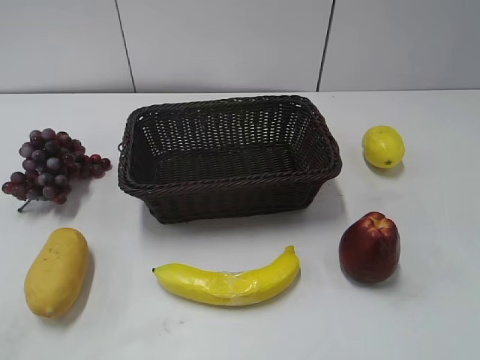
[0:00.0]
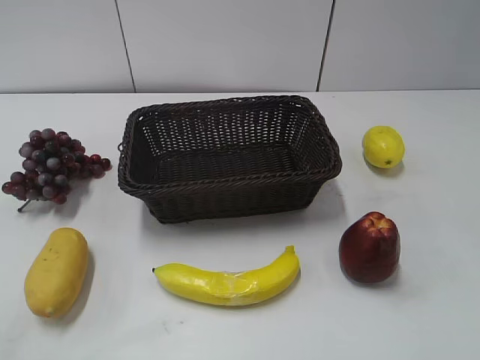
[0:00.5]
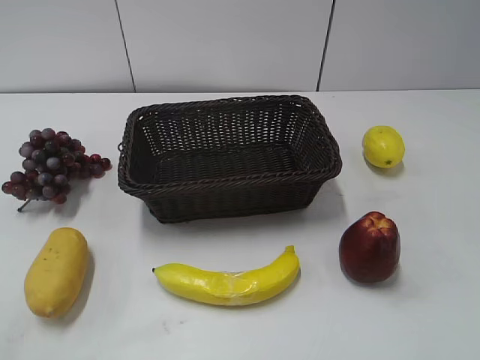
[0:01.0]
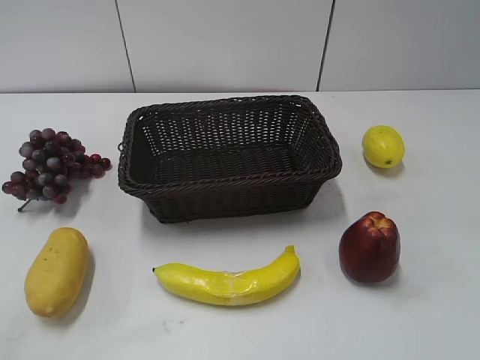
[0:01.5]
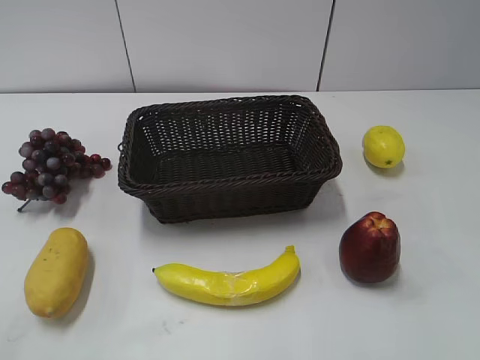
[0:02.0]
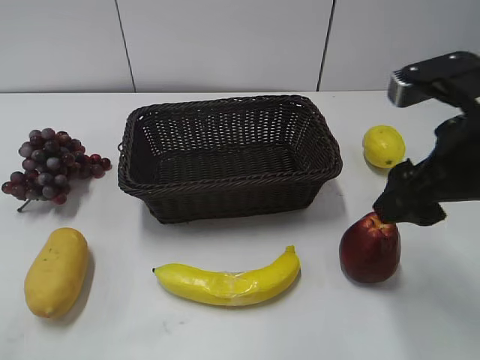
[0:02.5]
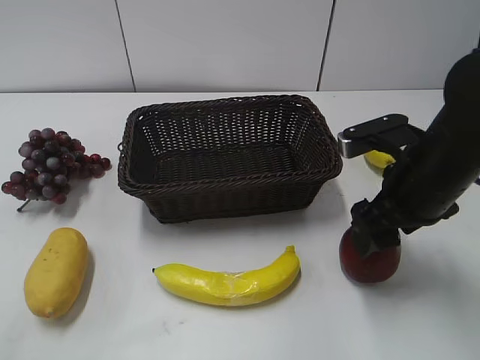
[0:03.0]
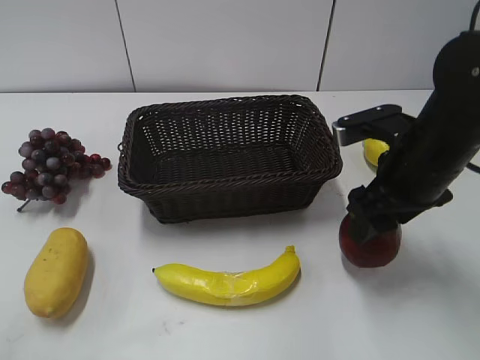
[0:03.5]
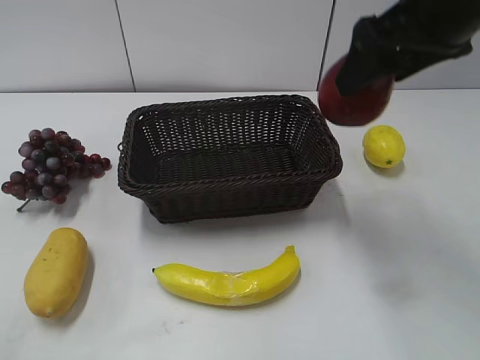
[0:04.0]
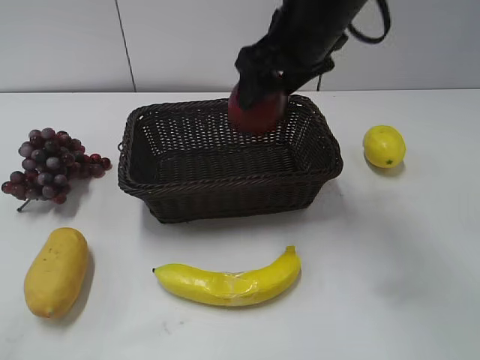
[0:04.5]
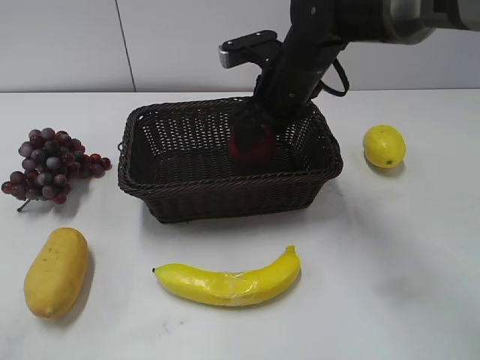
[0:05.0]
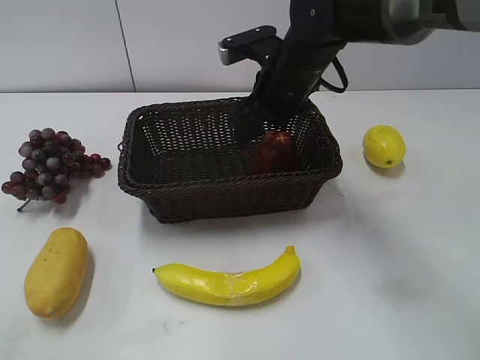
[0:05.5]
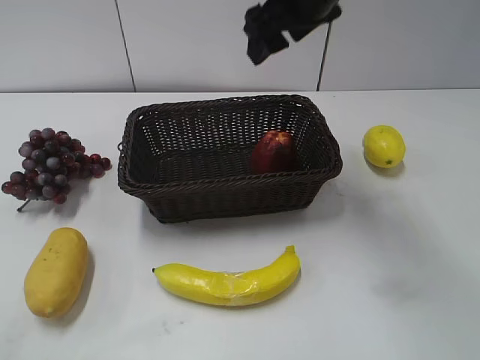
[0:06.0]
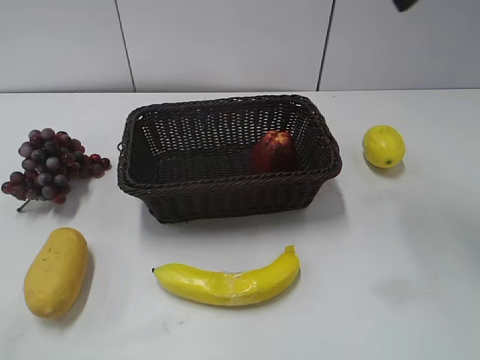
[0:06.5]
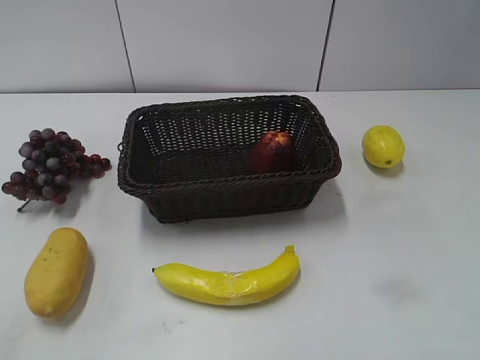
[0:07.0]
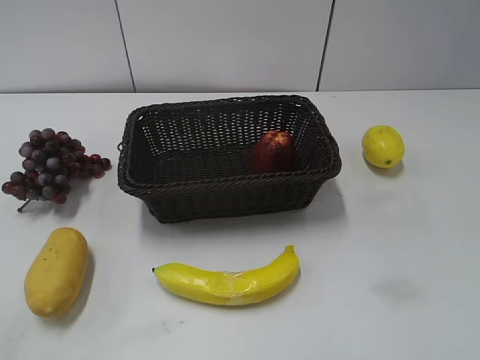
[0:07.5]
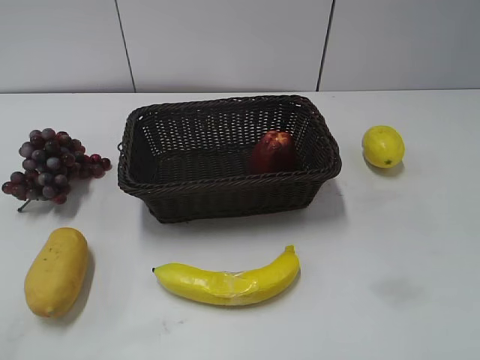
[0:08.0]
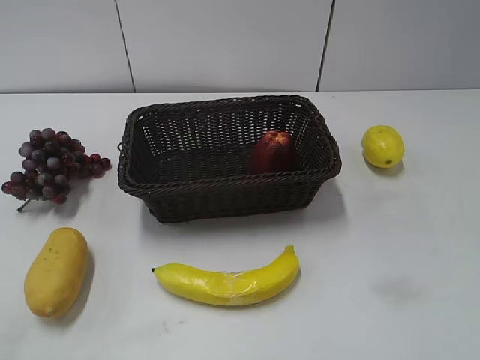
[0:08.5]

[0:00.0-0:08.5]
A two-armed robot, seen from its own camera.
Step, 0:02.5 to 0:03.0: Grasp the apple with right gripper.
Step, 0:03.5 to 0:05.0: Place the apple in the basket with right gripper.
0:02.0 to 0:04.0: The right gripper heads forward and to the left, covering approximately 20 cm.
0:04.0 to 0:06.5: The right gripper reaches roughly 15 cm downward, then returns.

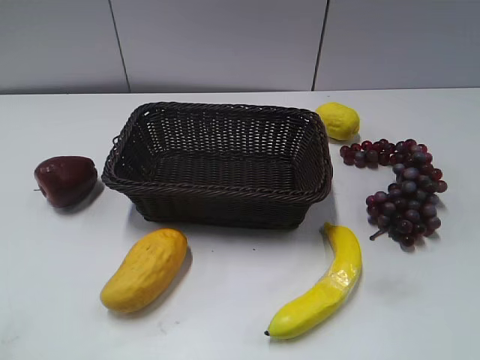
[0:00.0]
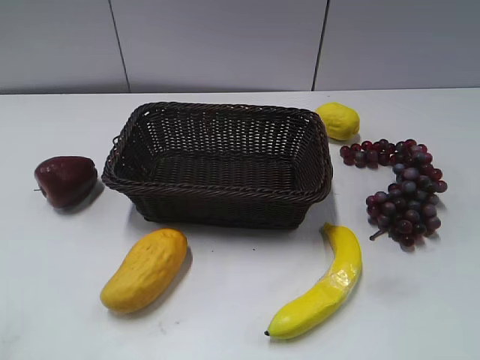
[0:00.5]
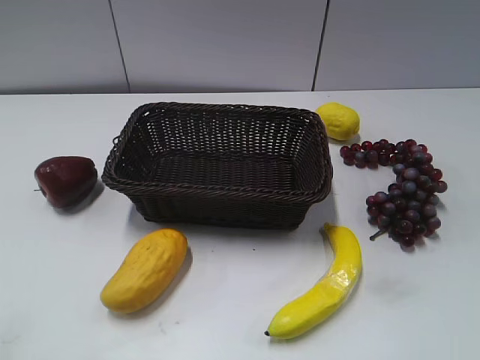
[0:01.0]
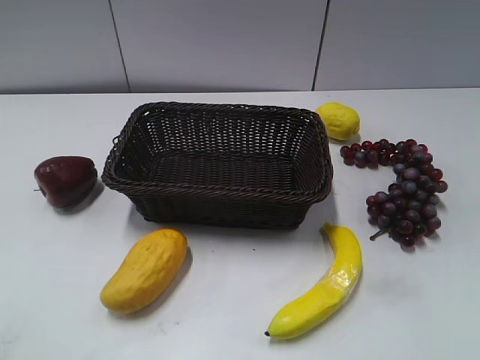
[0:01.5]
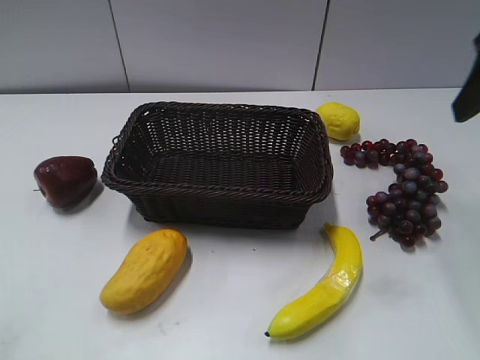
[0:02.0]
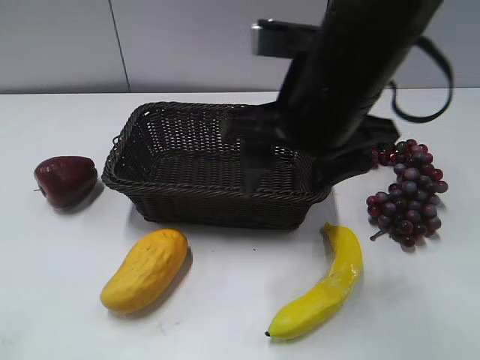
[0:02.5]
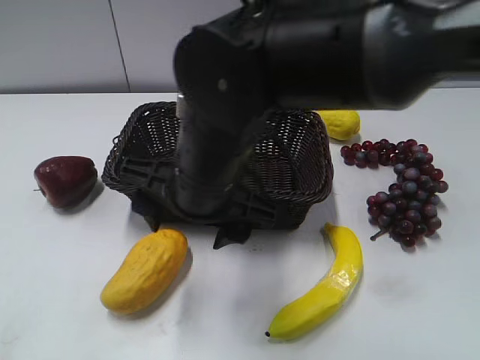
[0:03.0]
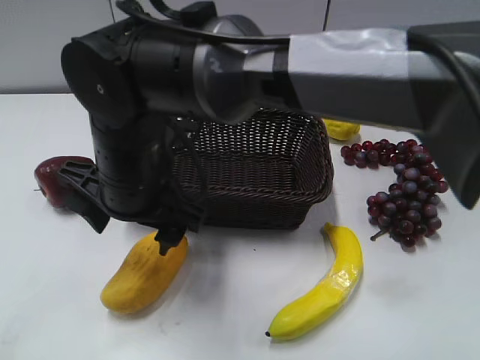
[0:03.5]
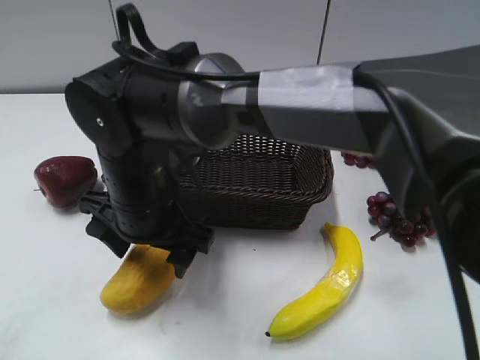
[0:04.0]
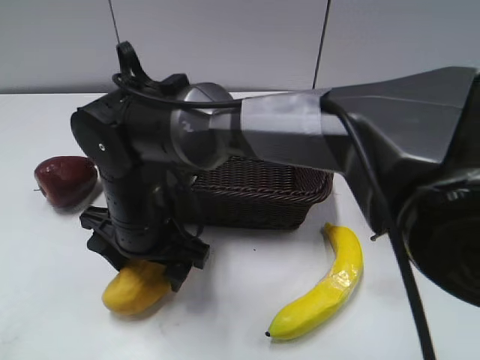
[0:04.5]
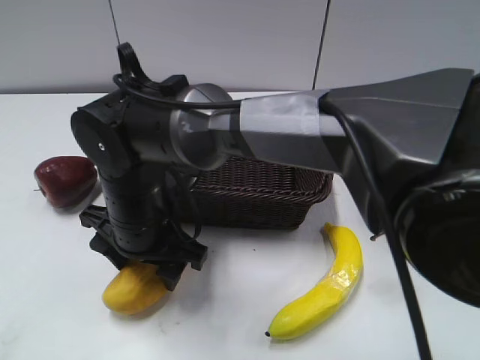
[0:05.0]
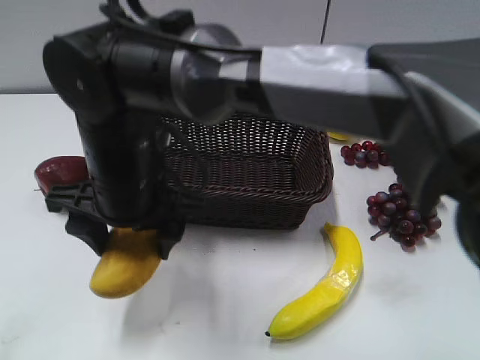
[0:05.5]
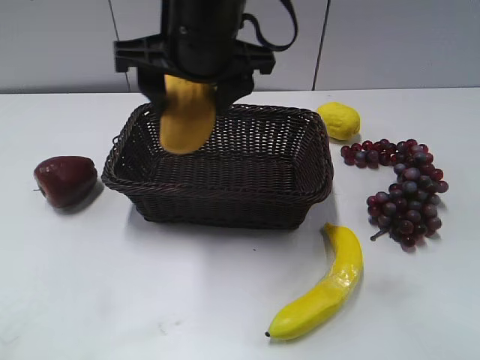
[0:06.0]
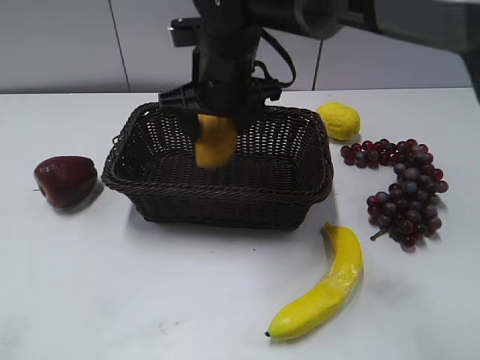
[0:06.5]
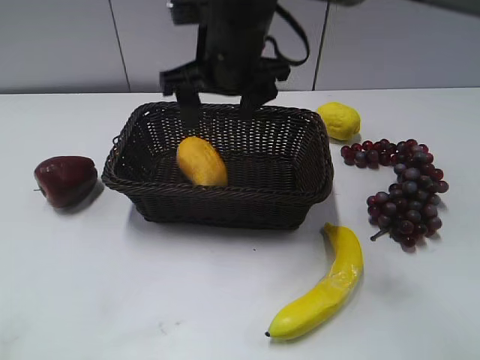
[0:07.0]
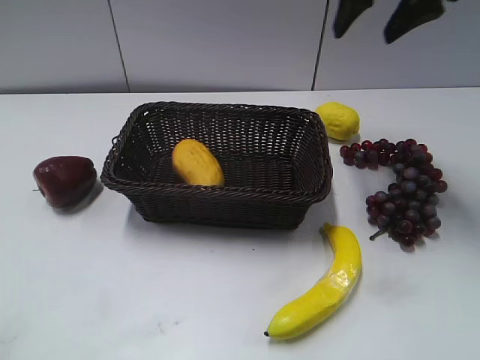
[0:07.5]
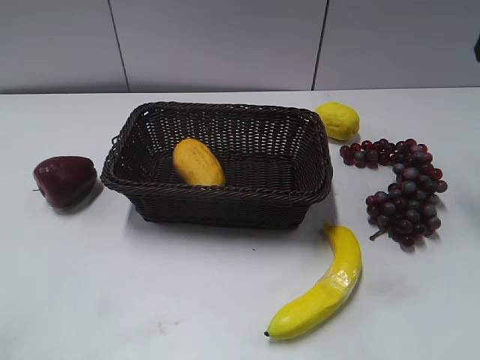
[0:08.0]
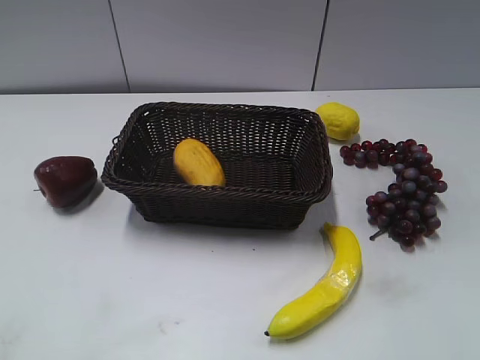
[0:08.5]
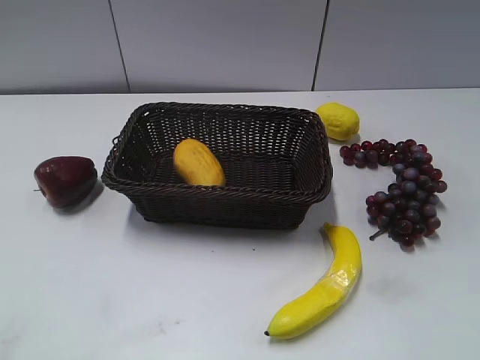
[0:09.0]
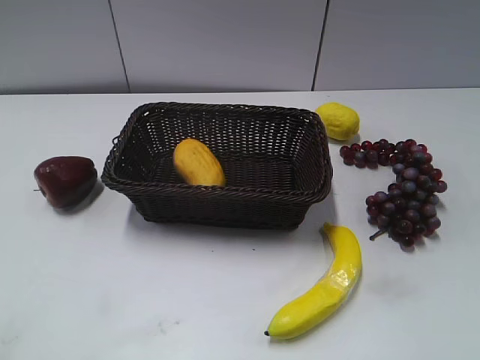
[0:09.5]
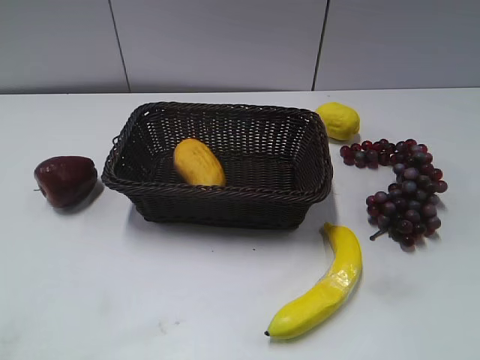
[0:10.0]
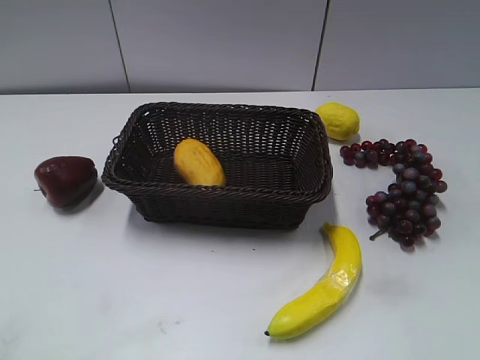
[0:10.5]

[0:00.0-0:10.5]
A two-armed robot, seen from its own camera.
Step, 0:02.0 to 0:04.5: Grasp the mango with right gripper.
Step, 0:05.0 to 0:06.5: Place the mango in the basket with right gripper.
0:02.0 to 0:04.0: The right gripper travels to the left and downward by roughly 40 cm, and opens its fingers.
0:04.0 to 0:06.5: The right gripper moves forward, to the right and upward, approximately 15 cm, and closes up.
0:06.5 to 0:08.5: The right gripper goes some 40 cm to the right and backward, and opens and closes again.

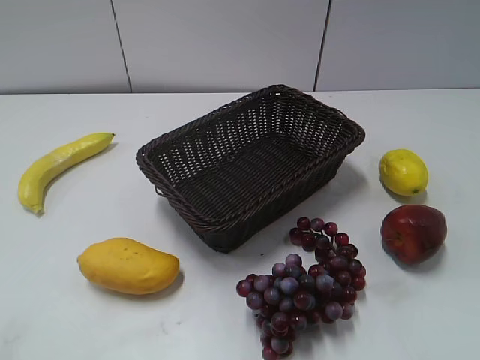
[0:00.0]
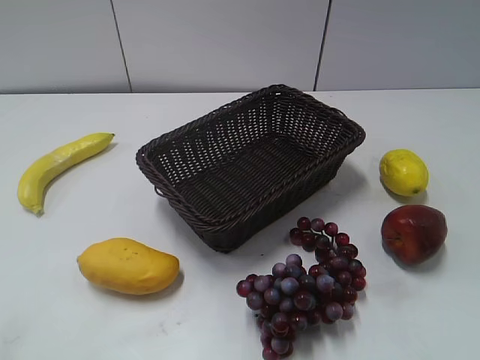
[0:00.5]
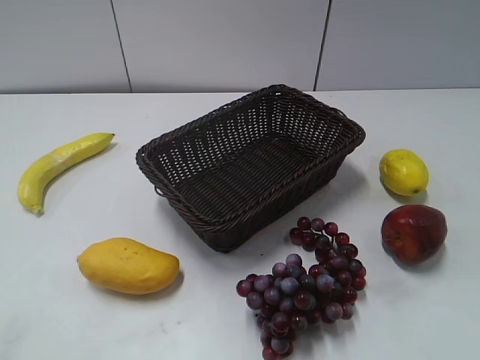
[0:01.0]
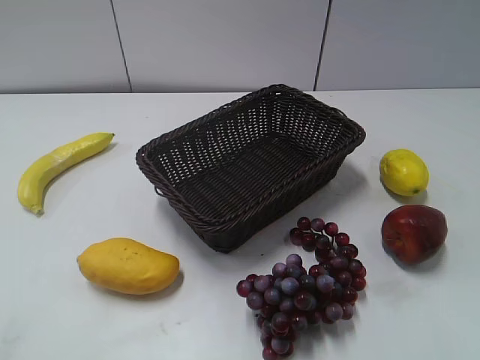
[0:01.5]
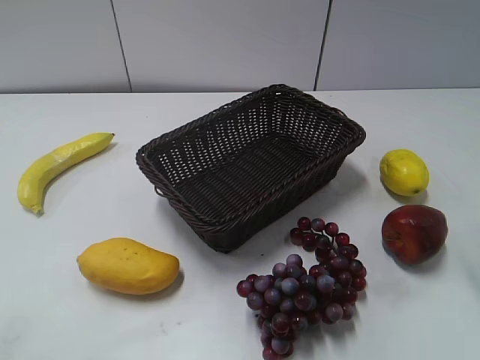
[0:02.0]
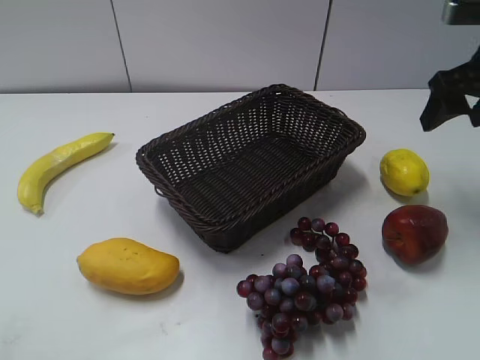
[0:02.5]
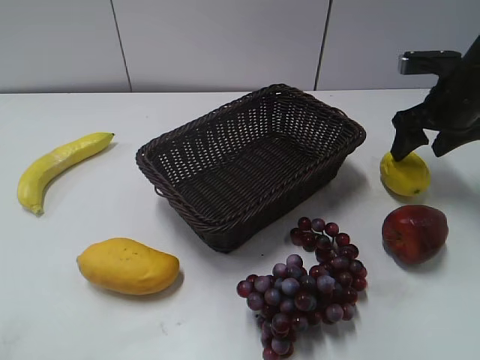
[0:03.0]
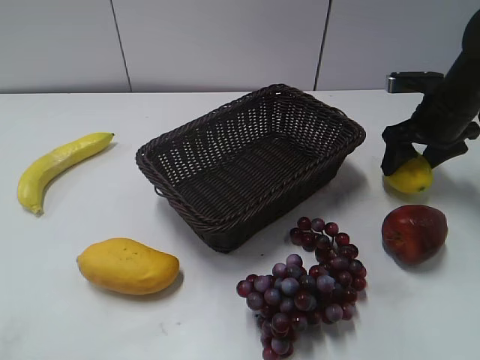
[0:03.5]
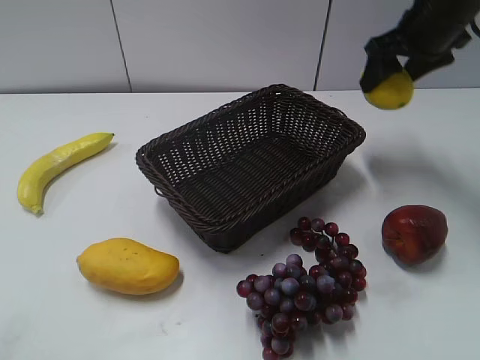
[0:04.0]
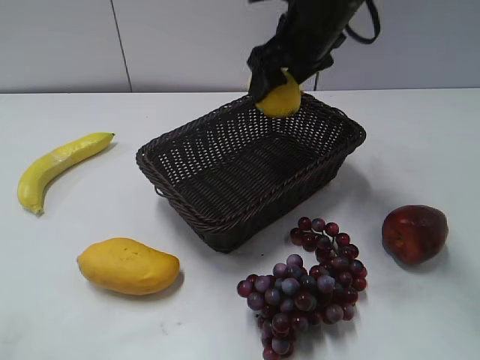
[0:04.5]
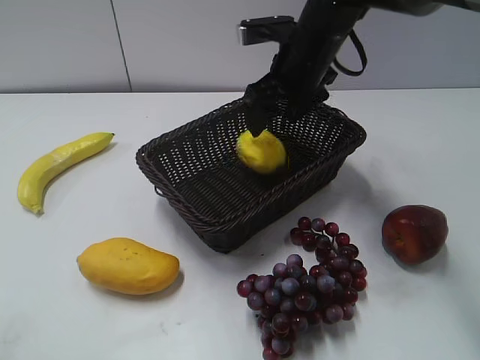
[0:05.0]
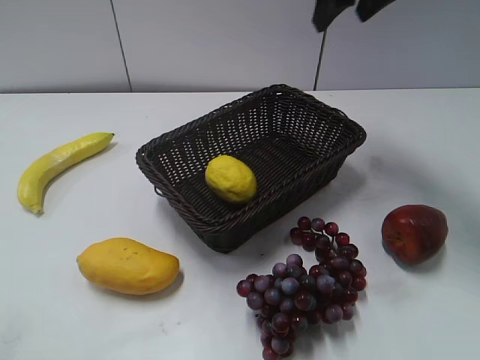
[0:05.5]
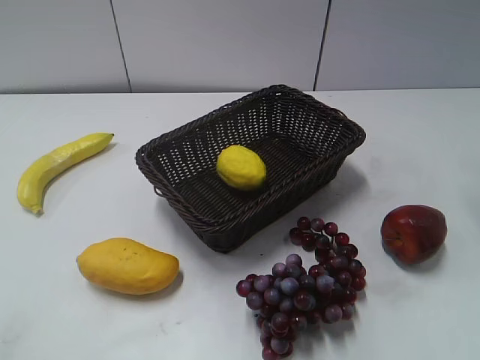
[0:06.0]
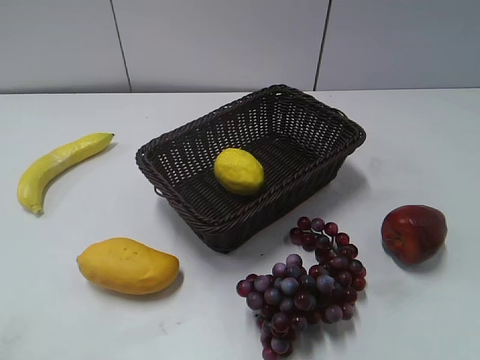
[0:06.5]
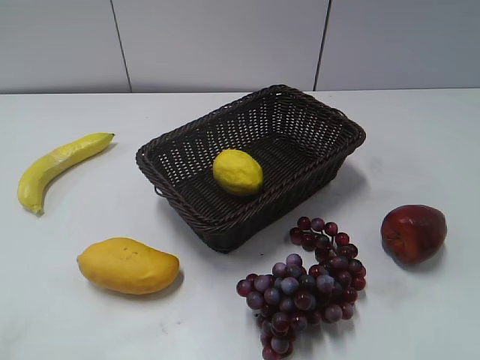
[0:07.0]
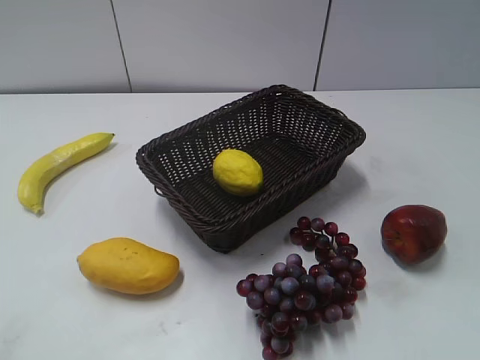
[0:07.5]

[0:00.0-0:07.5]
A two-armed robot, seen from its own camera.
Step, 0:02.5 to 0:03.0: Grasp the lemon with right gripper.
Step, 0:04.0 to 0:05.0: Place the lemon in the basket with right gripper.
0:02.0 to 0:04.0: The right gripper heads forward, covering some 20 cm.
0:04.0 to 0:05.5: The right gripper heads upward and to the left, covering some 10 cm.
0:05.5 to 0:07.5: The right gripper shifts approximately 40 cm backward.
